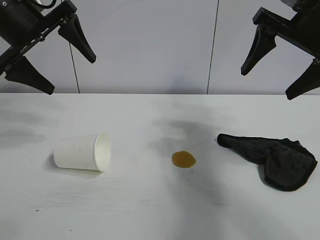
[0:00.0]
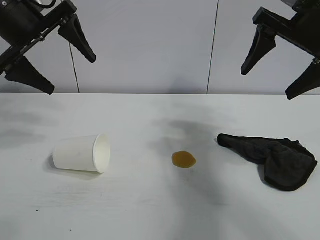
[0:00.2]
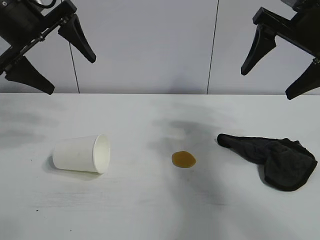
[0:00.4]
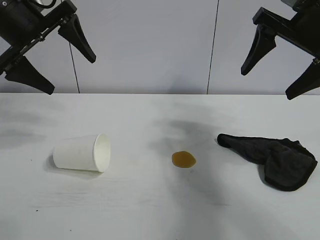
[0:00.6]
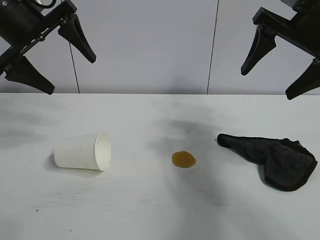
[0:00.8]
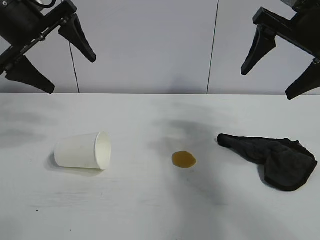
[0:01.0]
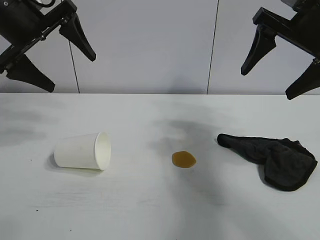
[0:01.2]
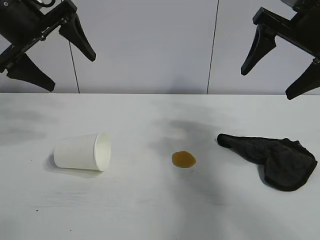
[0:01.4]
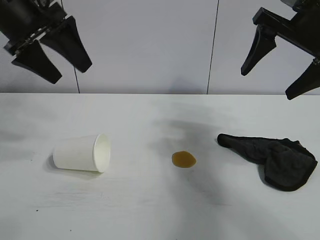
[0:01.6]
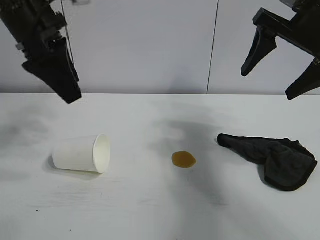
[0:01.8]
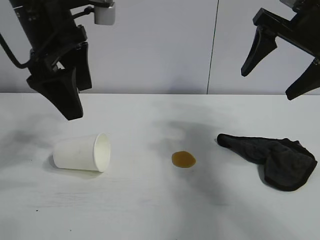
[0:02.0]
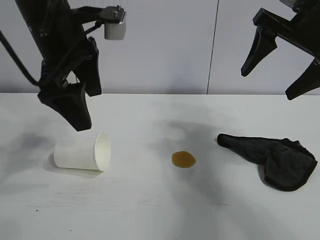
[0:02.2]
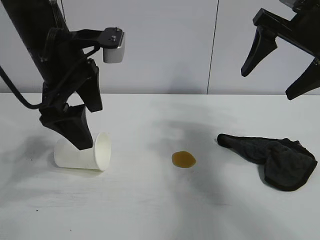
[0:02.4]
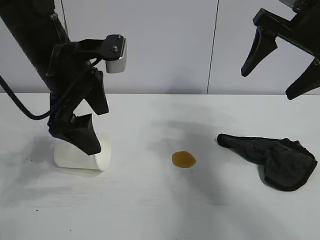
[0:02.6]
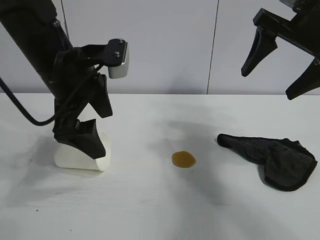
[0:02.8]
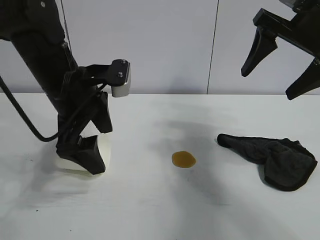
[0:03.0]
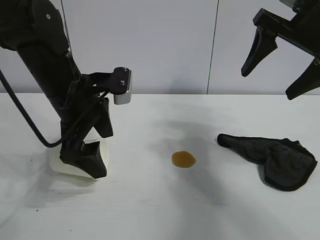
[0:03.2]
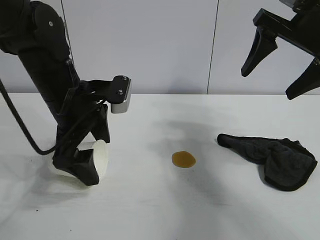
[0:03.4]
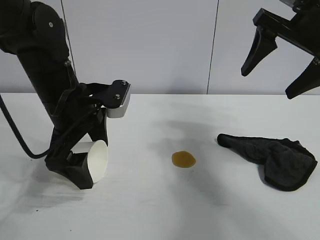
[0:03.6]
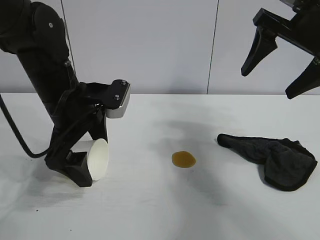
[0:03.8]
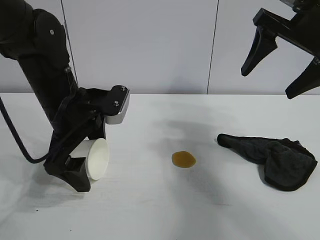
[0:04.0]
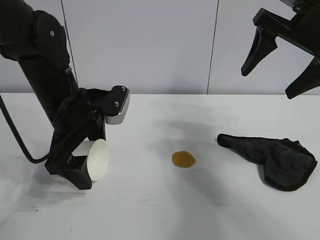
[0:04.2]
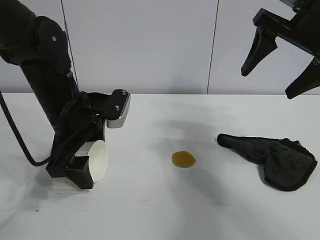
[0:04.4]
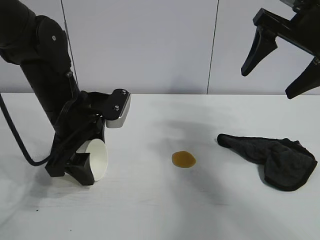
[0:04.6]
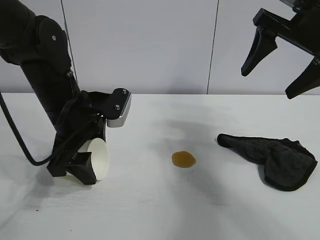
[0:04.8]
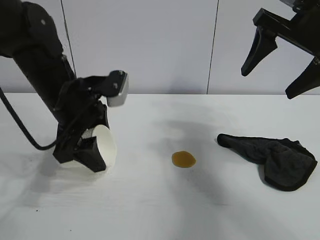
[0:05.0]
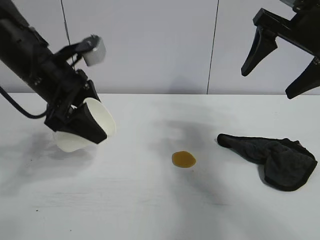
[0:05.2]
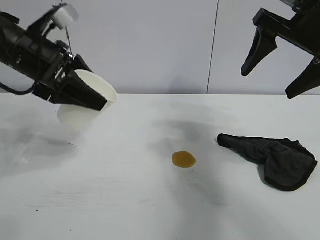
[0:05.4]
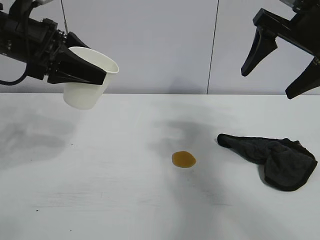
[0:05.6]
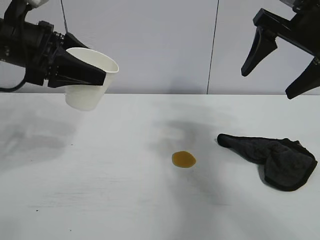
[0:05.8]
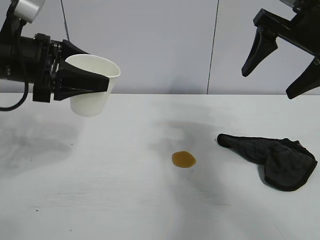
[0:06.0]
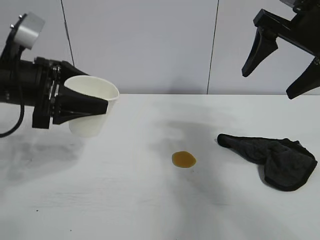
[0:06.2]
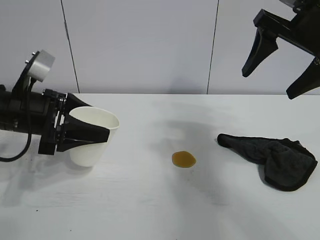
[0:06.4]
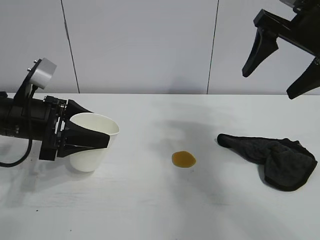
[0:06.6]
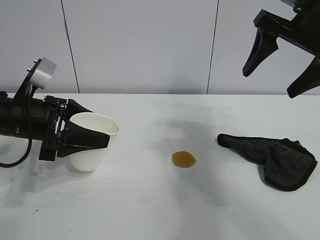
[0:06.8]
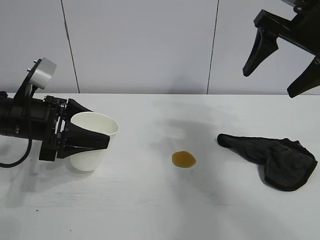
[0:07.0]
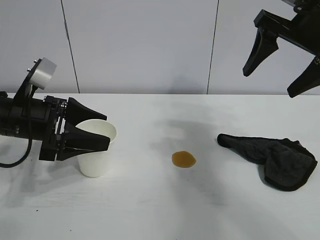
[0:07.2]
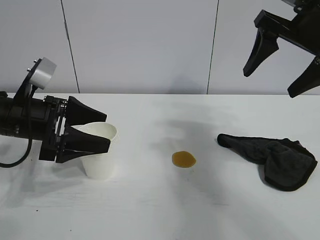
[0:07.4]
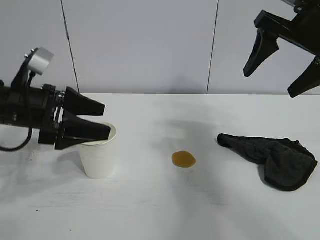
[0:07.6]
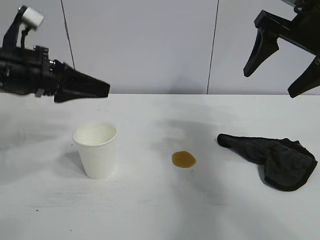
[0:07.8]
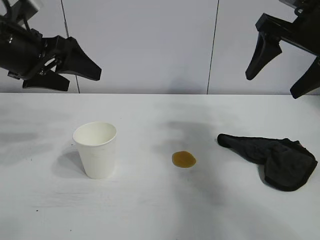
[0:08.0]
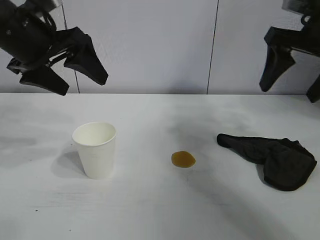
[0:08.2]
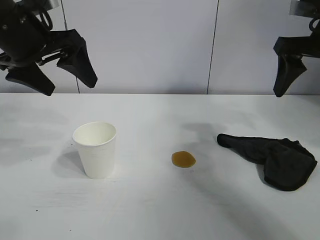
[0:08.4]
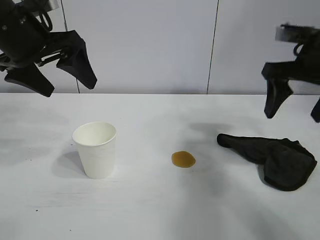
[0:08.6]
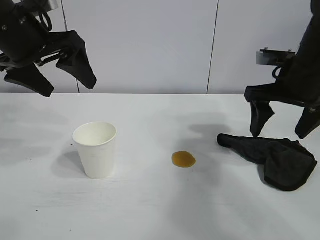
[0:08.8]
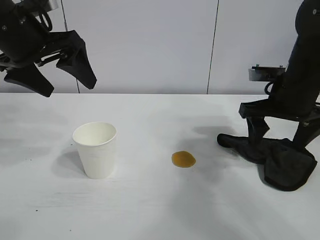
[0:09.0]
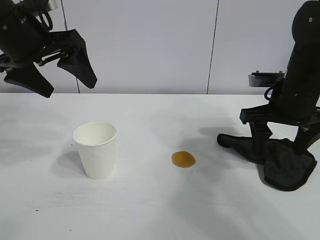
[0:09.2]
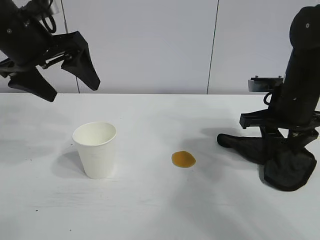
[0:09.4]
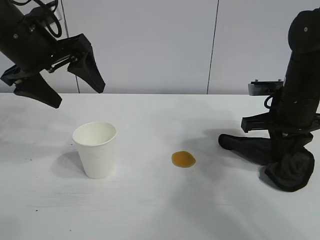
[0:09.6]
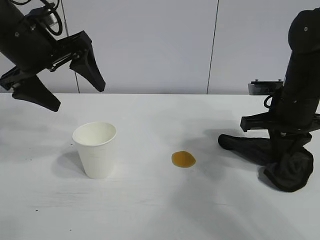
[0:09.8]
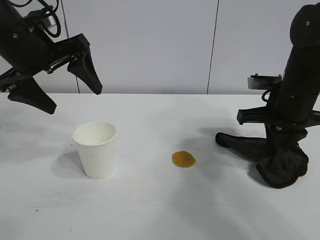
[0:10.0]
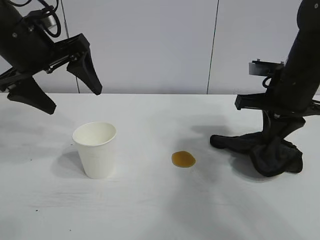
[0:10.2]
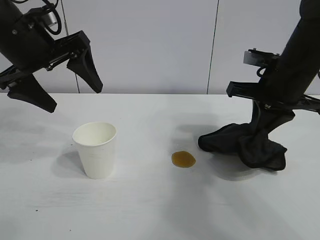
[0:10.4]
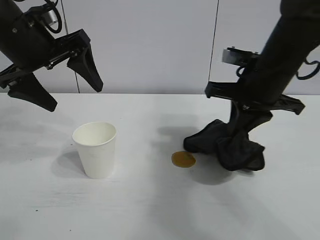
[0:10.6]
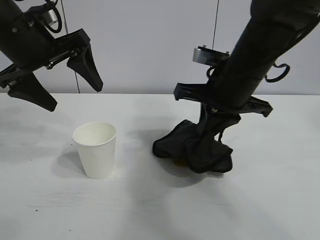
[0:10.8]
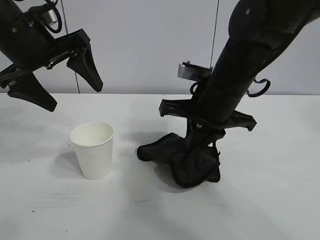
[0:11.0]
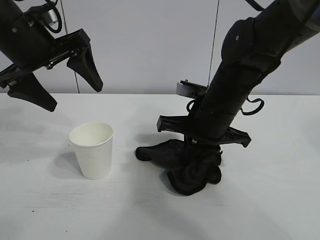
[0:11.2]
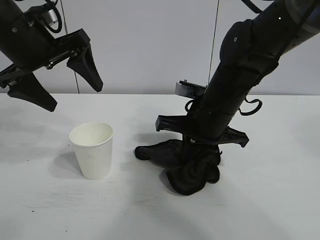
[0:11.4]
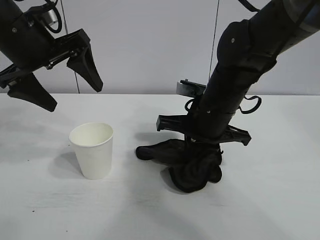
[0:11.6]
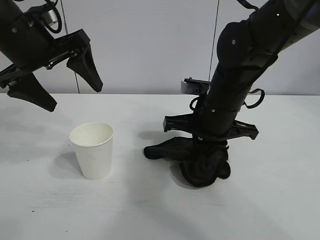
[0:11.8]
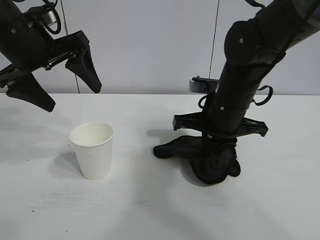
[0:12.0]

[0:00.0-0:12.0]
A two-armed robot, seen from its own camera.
Task of the whole recording: the left gripper pick up the fallen cup and place it upright, the right gripper grasp the black rag and wipe the stain on the table, the right gripper put the black rag back in its original position.
Step, 0:01.2 to 0:04.4: Grasp the paper cup with left gripper.
Step, 0:04.6 to 0:07.2: Stand the paper cup upright with left gripper.
Step, 0:07.4 to 0:09.8: Grasp the rag with right gripper.

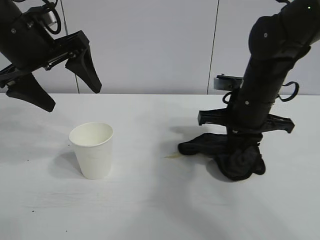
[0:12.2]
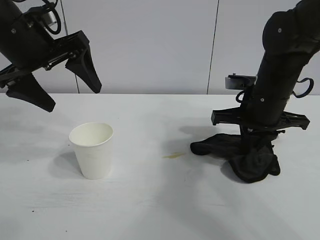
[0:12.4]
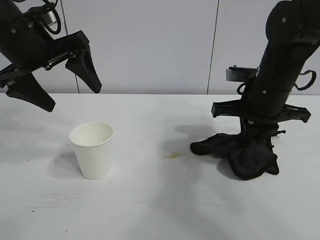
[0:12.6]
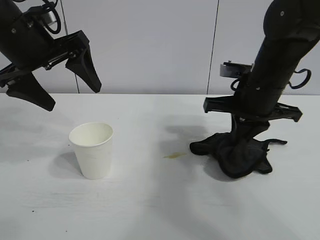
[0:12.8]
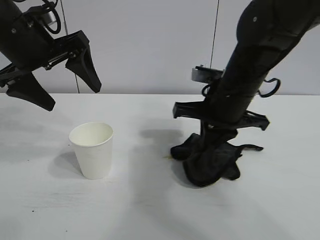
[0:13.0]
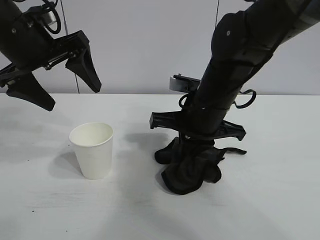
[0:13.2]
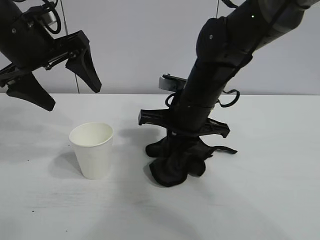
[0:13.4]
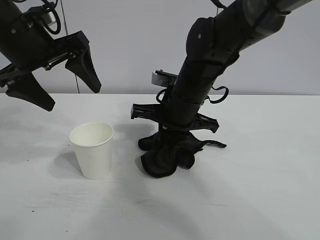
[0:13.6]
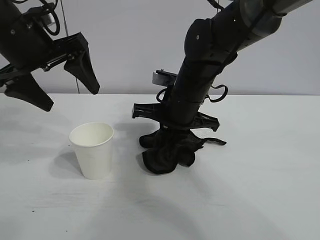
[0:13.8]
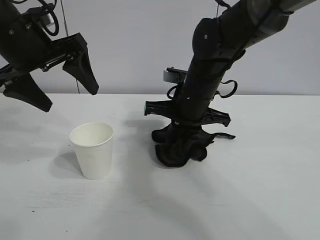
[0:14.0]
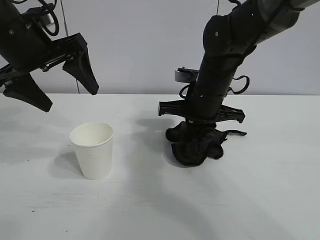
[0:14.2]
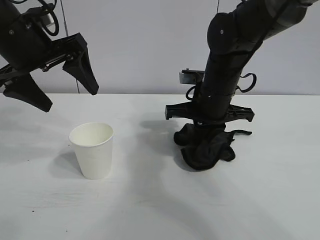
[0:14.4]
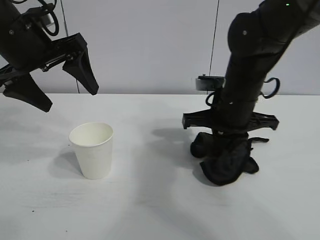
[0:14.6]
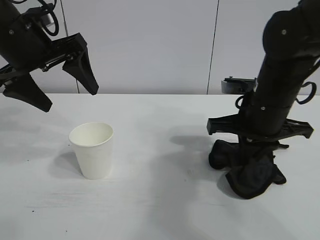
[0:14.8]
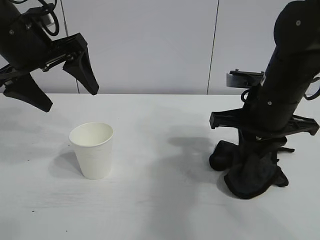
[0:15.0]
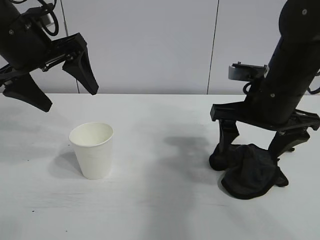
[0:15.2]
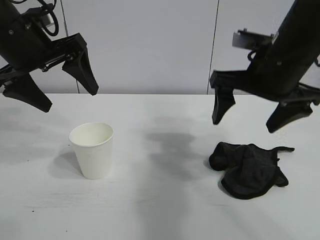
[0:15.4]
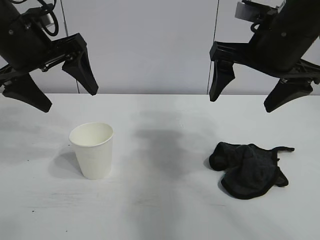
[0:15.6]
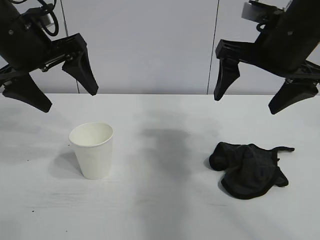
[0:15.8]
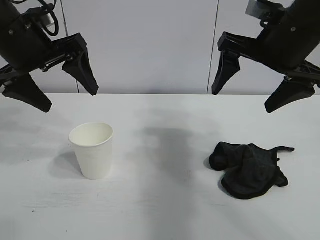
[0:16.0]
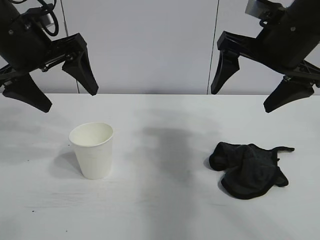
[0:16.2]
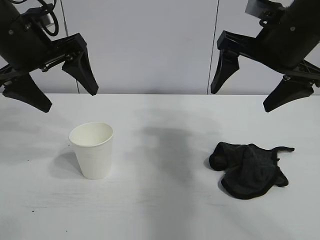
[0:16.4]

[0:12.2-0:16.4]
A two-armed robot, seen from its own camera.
Task of the whole recording: the left gripper pick up the fallen cup and place it upright, the right gripper grasp the black rag and wipe the stain on the table, the right gripper put the black rag back in its original position.
Step, 0:12.2 to 0:15.0: Wipe the stains off the table with the rag with right gripper.

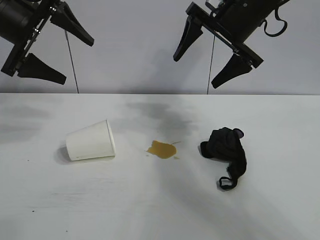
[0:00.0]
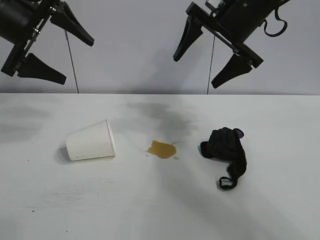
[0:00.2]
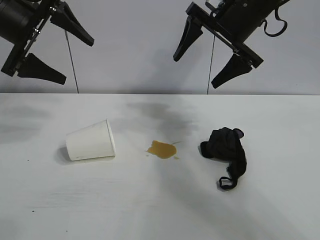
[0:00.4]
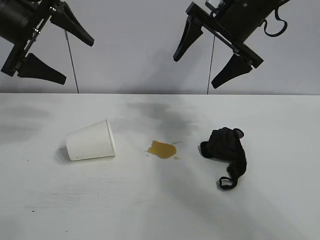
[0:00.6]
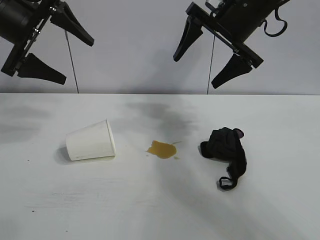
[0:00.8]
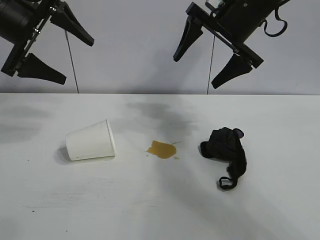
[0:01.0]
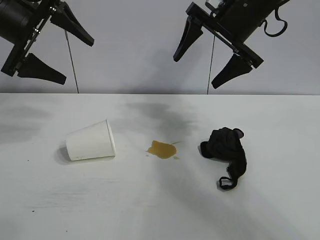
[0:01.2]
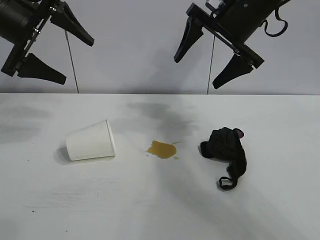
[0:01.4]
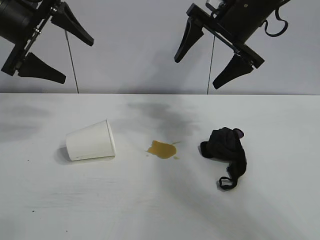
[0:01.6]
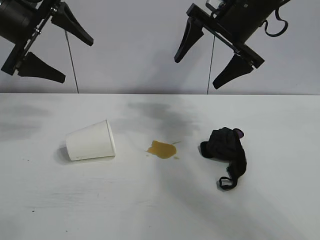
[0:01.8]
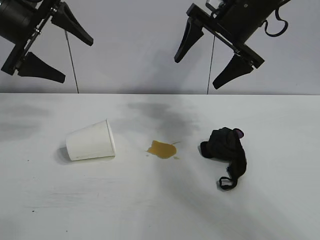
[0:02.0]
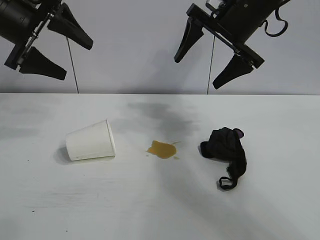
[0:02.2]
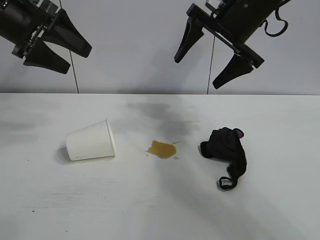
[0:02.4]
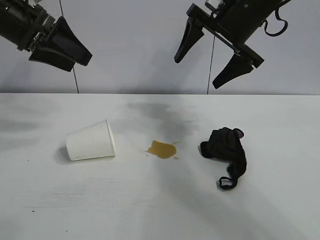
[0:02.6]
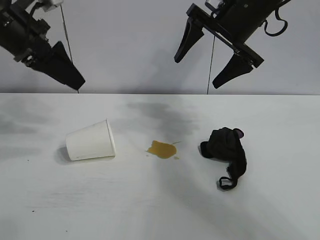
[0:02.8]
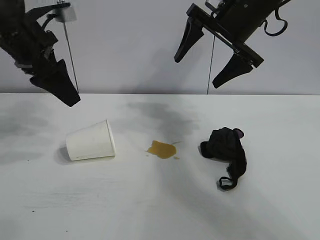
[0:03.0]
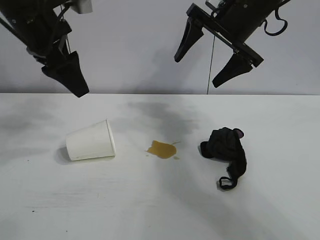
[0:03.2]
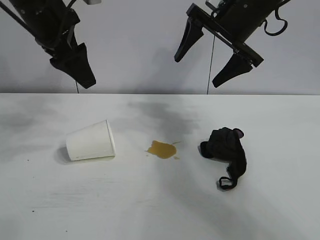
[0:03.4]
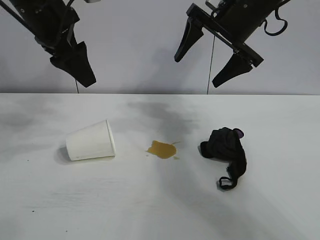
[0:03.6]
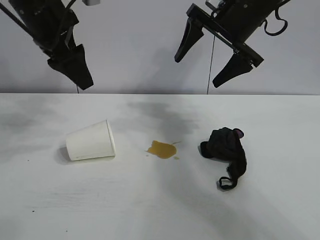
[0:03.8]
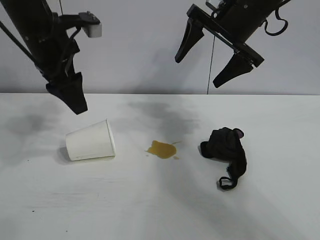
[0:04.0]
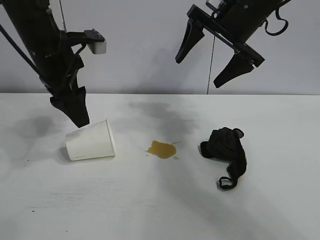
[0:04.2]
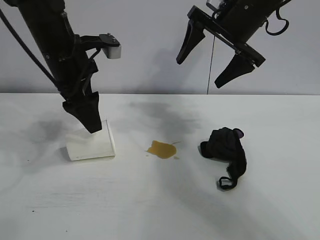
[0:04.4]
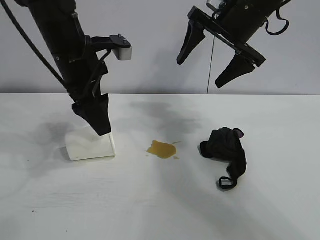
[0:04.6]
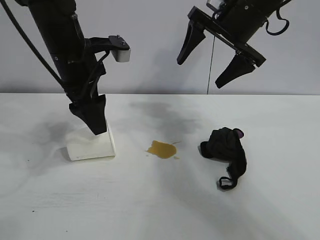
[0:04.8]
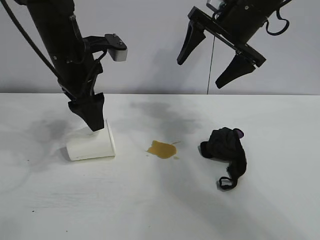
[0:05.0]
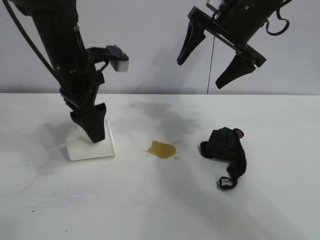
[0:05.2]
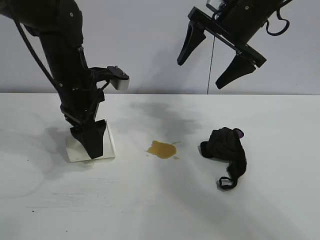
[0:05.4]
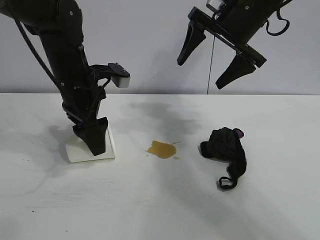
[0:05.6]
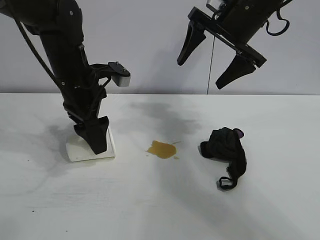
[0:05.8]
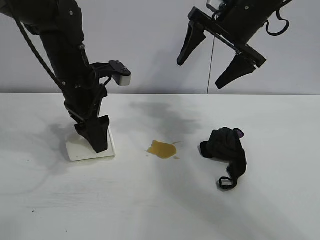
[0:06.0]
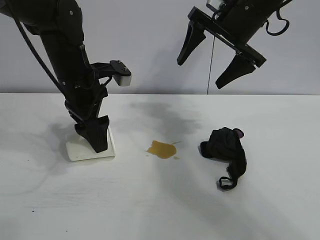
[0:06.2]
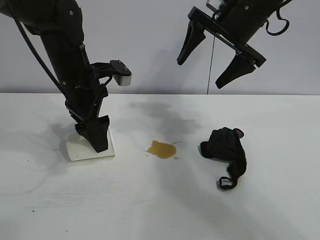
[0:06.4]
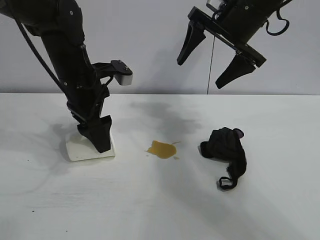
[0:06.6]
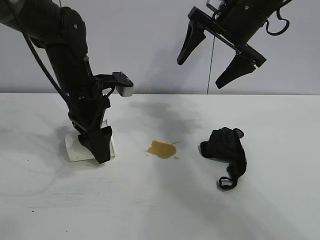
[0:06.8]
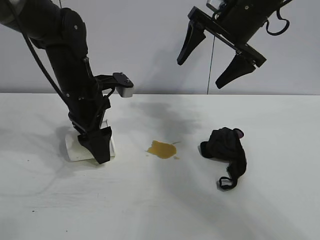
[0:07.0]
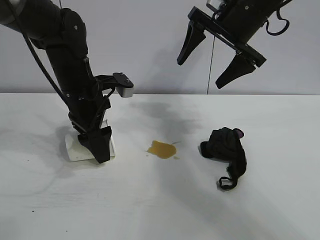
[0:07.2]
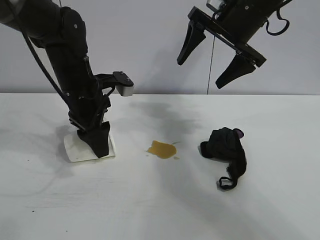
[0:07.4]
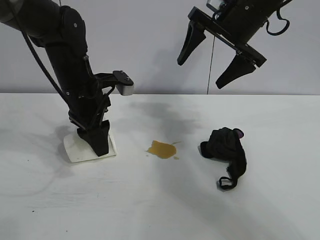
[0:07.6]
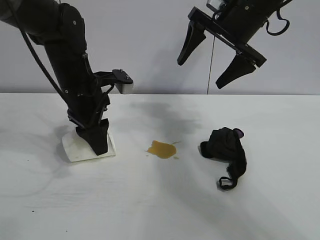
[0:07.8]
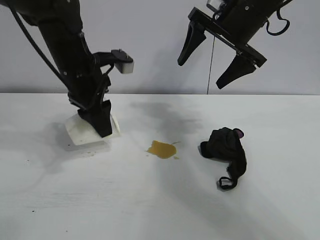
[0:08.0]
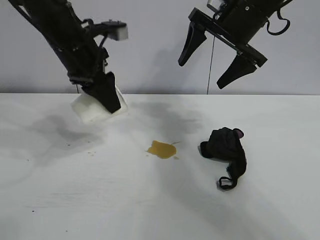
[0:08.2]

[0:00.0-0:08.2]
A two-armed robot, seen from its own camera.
Task of the whole recording: the left gripper pick up the fallen cup and place it upright, the right gripper grasp the black rag and wipe the stain on the table, the right gripper put the black rag back in its original position.
Step, 0:01.4 to 0:07.6: Grasp the paper cup with left gripper.
